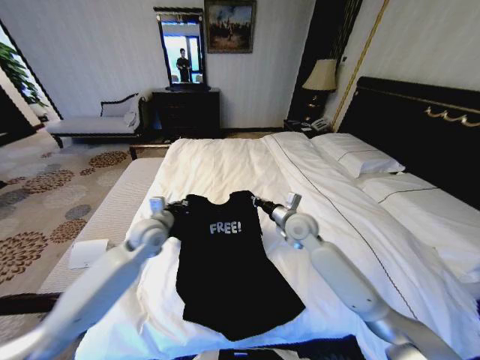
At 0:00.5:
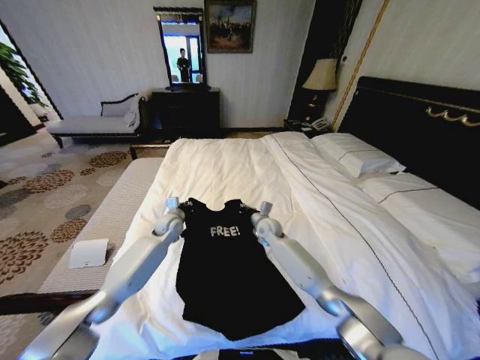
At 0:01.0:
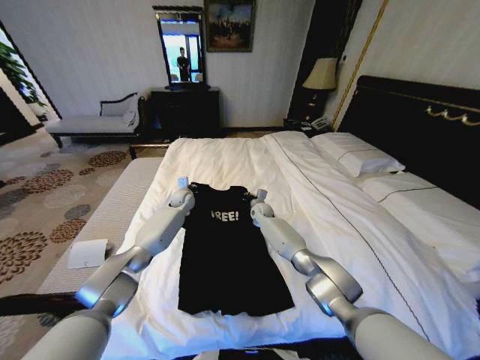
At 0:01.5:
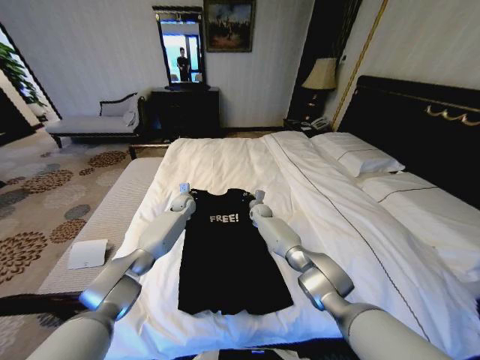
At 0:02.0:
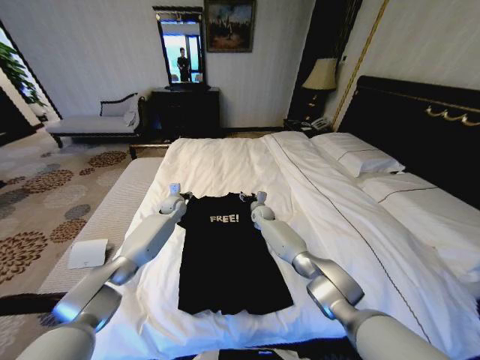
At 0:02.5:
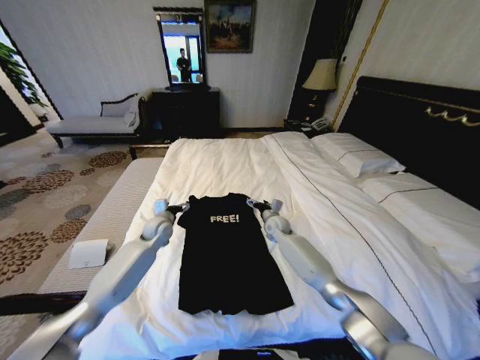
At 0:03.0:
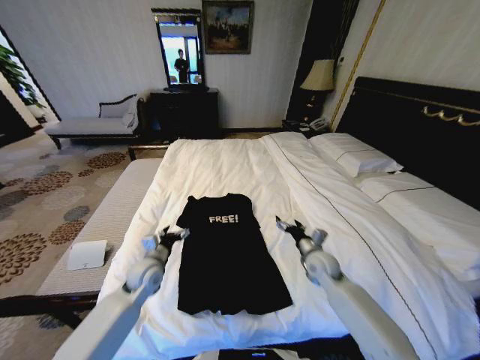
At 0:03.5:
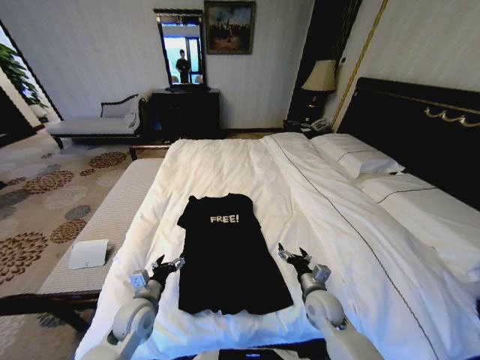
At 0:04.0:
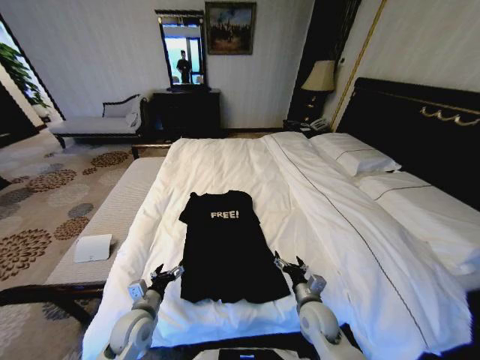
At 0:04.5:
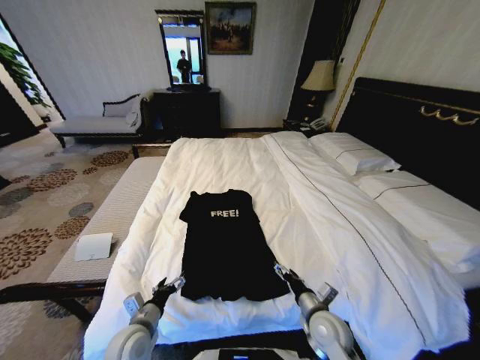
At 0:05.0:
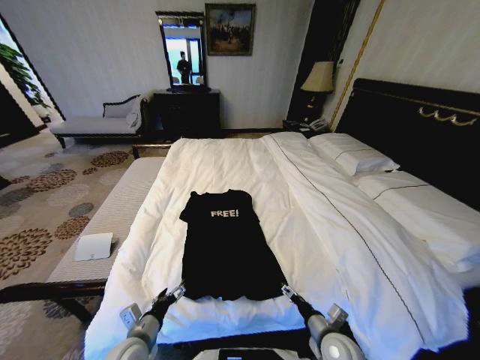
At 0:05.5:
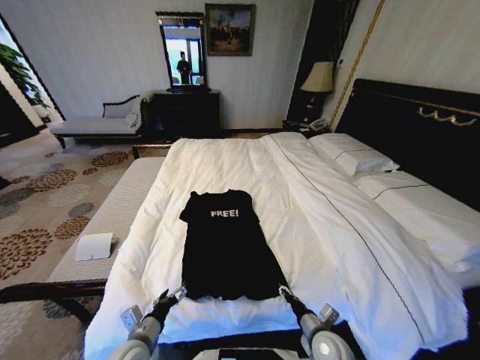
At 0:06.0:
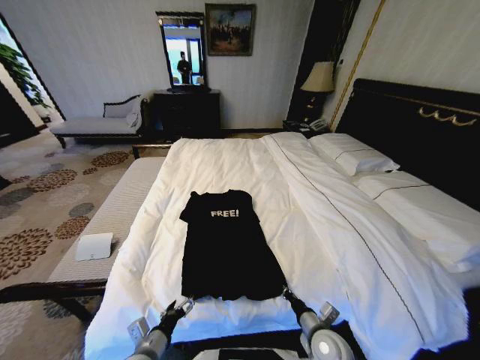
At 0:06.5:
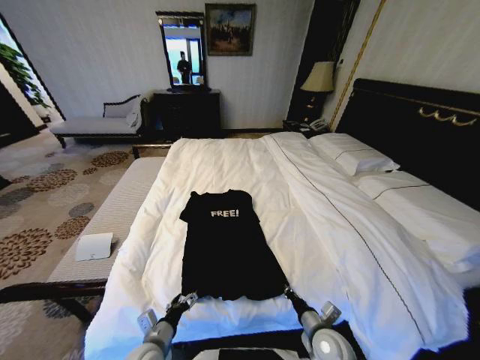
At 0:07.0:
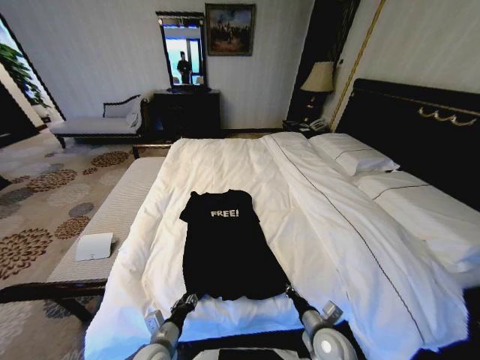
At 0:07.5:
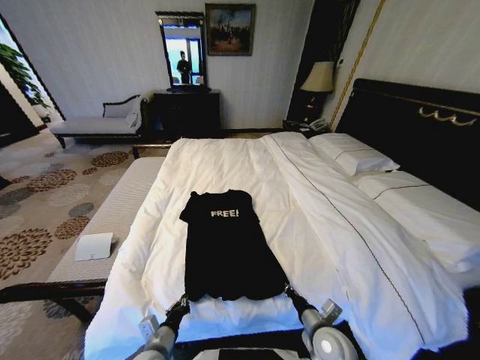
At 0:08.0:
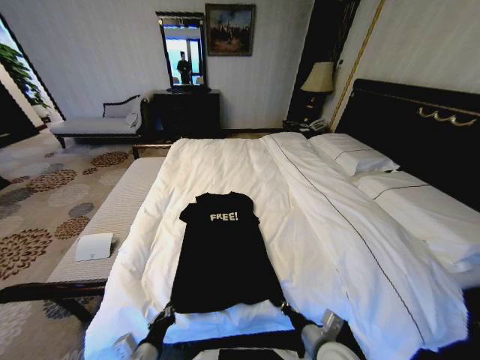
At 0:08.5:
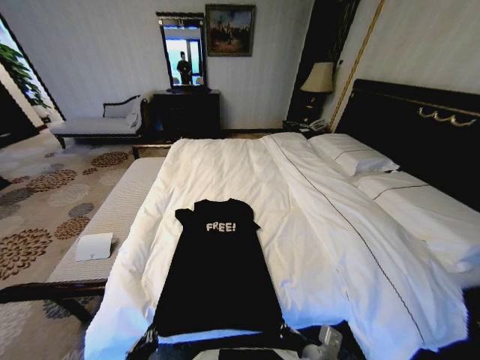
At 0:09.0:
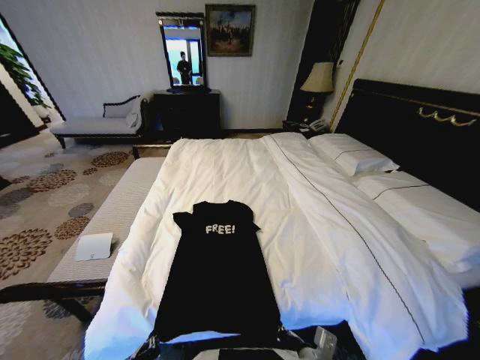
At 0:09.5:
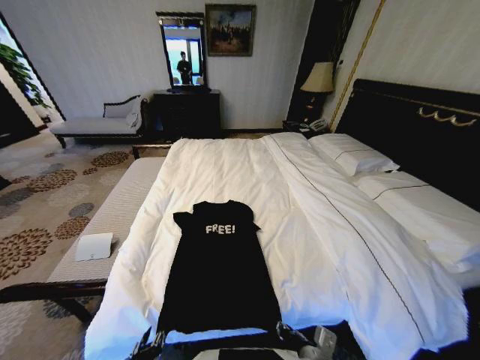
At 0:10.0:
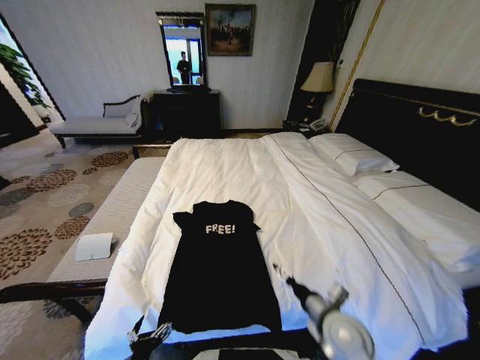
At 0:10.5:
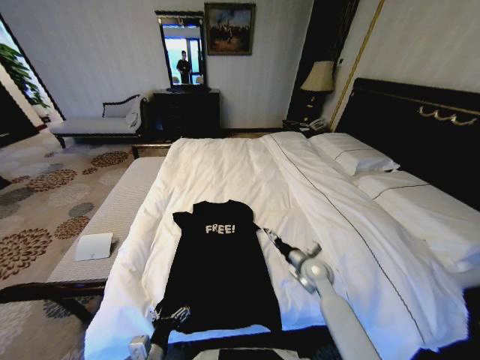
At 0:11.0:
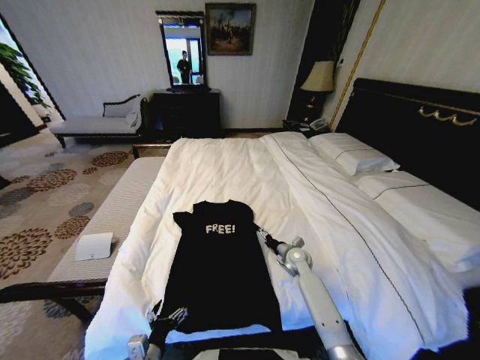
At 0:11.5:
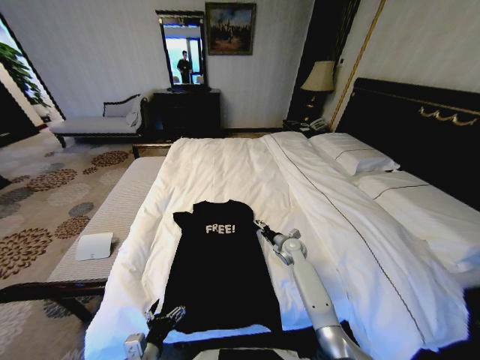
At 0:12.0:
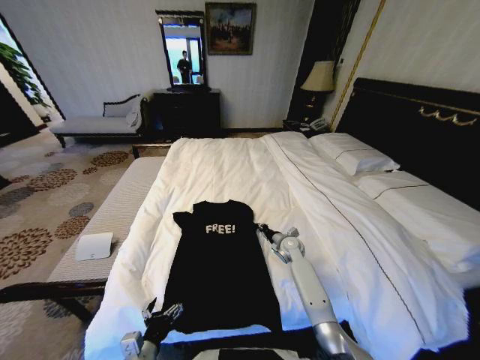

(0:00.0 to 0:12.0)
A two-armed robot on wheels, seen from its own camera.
Task of the whole recording: Fold the clothes on the bed.
0:00.0 - 0:02.0: The right gripper shifts about 25 cm forward and downward, and opens. Meanwhile the left gripper travels forward by about 20 cm, and opens.
0:02.0 - 0:04.0: Both grippers move backward, approximately 40 cm.
0:04.0 - 0:06.0: The two grippers go approximately 10 cm backward. The right gripper closes up.
0:06.0 - 0:08.0: The right gripper travels upward by approximately 5 cm. The left gripper closes.
0:08.0 - 0:10.0: The left gripper is displaced backward by approximately 5 cm, and opens. The right gripper opens up.
0:10.0 - 0:12.0: The right gripper shifts roughly 30 cm forward, and closes. The left gripper goes some 5 cm forward.

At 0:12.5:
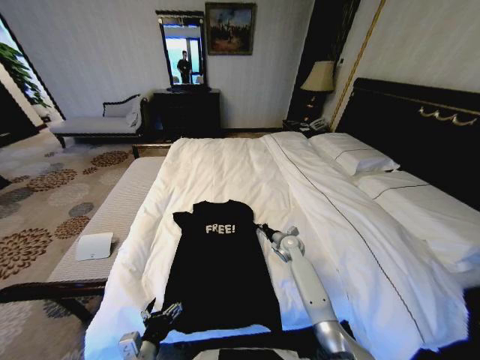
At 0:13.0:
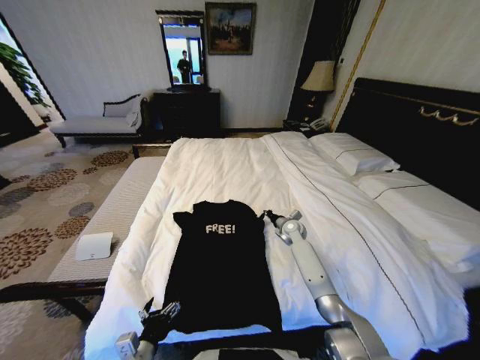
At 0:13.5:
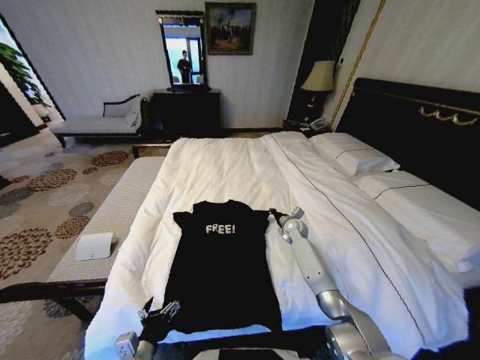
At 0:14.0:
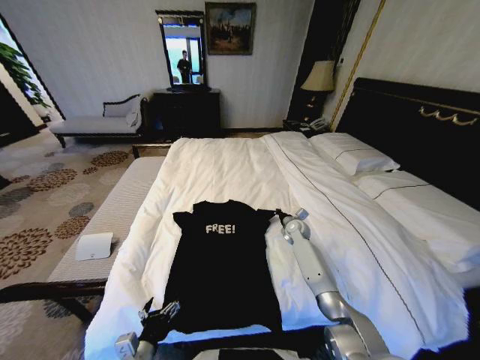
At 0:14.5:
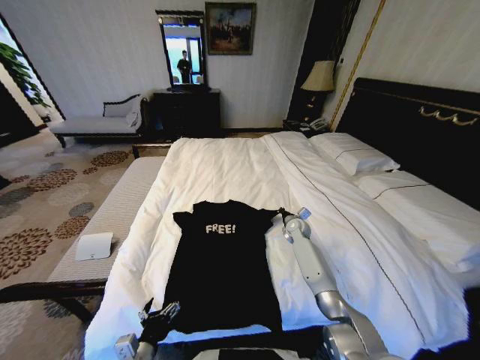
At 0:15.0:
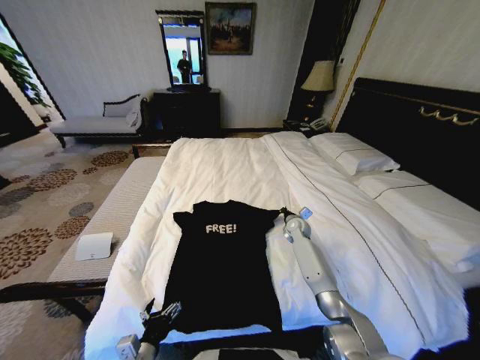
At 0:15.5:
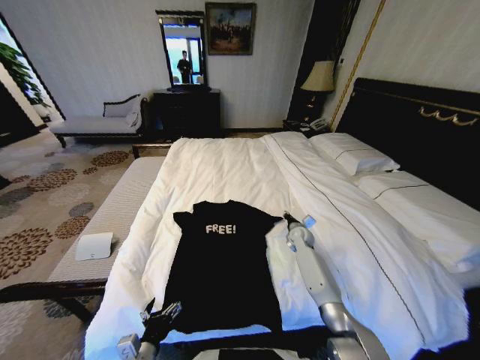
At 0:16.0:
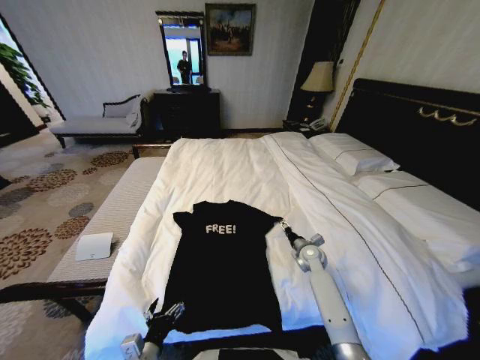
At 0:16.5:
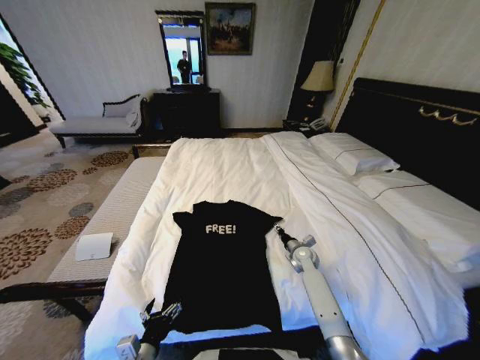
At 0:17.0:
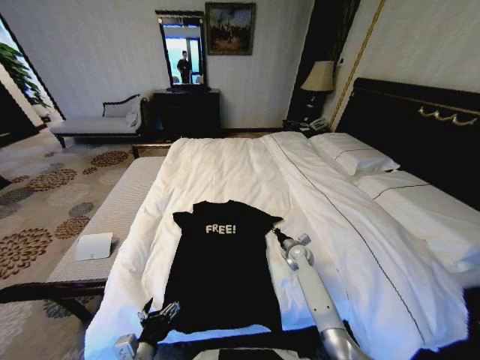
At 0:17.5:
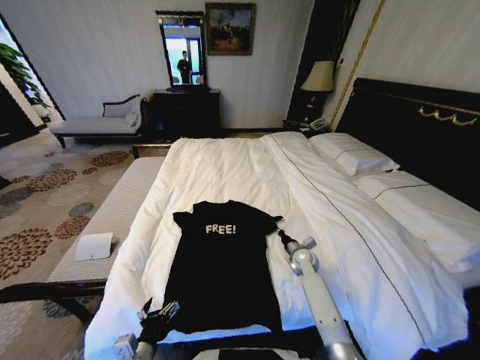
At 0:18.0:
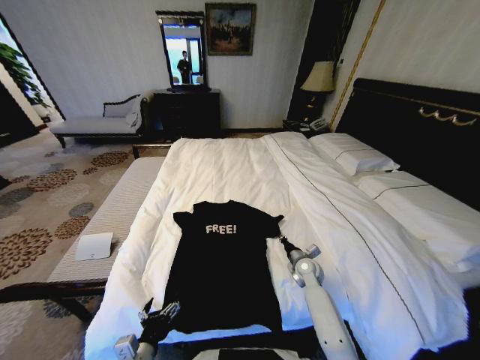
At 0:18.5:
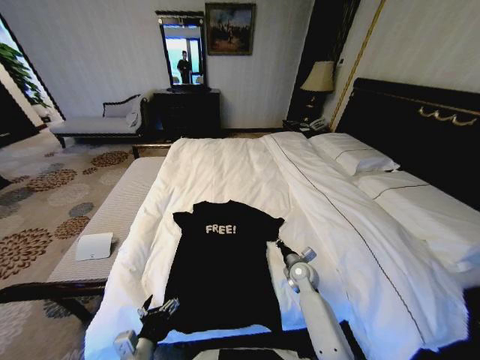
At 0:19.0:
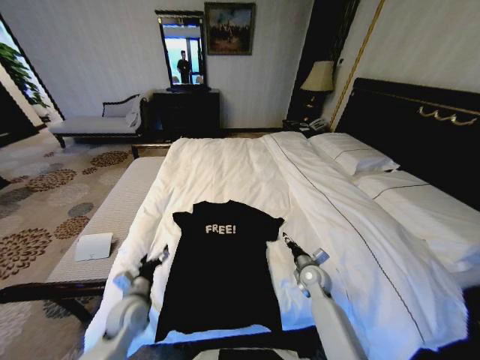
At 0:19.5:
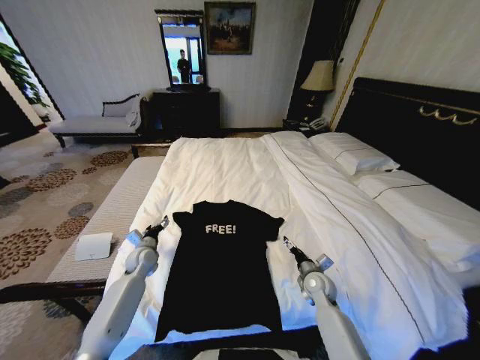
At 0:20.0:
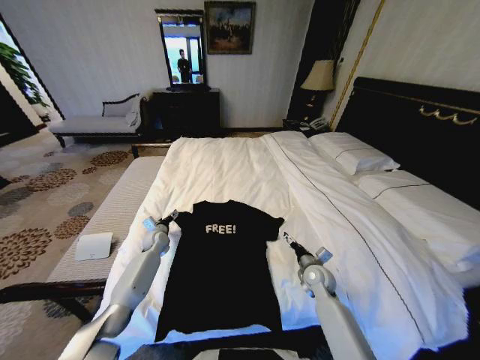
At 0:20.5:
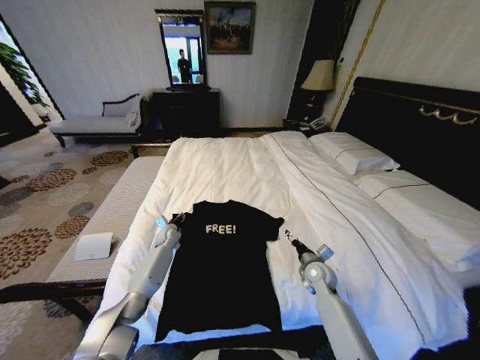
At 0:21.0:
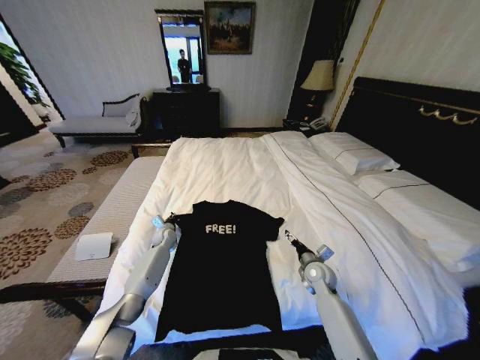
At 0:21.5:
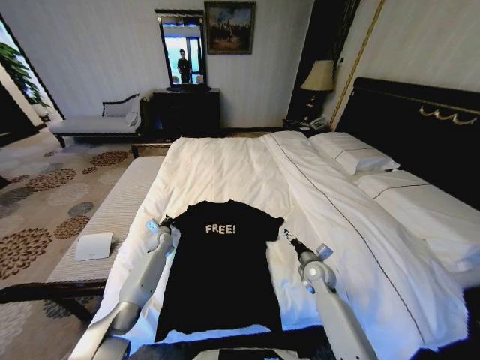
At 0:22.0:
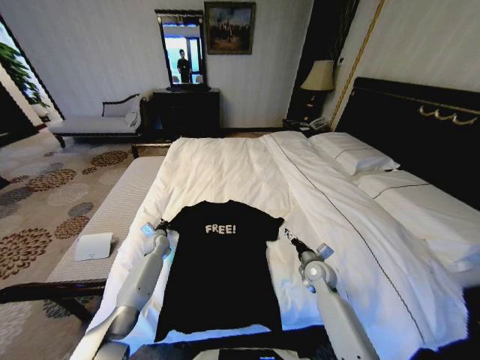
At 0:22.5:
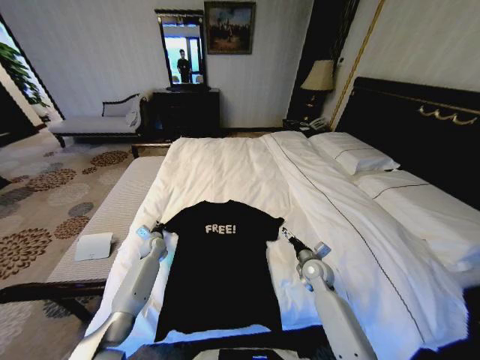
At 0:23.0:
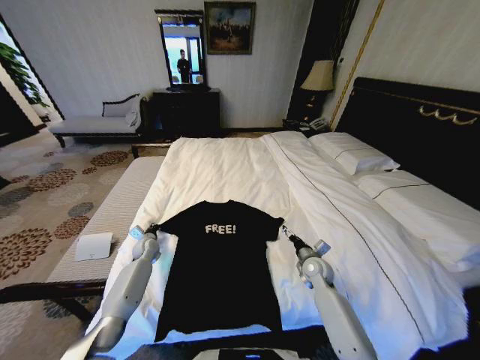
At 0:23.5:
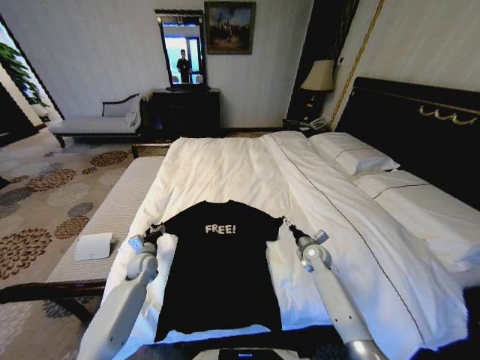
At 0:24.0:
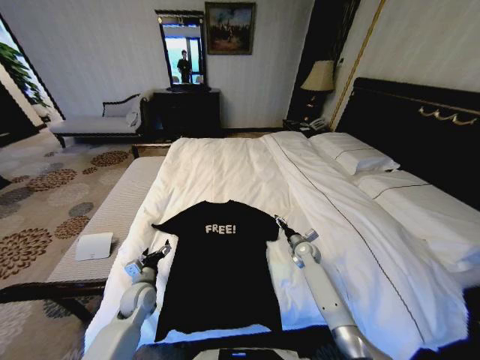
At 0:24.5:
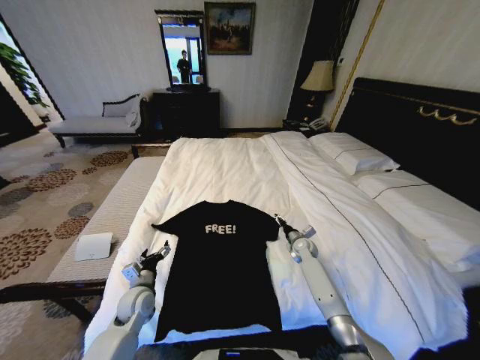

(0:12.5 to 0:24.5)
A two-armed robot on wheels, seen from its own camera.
Task of the whole recording: Fold the clothes on the bed.
0:12.5 - 0:14.5: The right gripper moves forward, about 5 cm.
0:14.5 - 0:16.5: The right gripper travels backward and downward by some 10 cm, and opens.
0:16.5 - 0:18.5: The right gripper is displaced backward by about 5 cm, and closes.
0:18.5 - 0:20.5: The left gripper travels forward by roughly 40 cm; the right gripper changes place by approximately 5 cm, and opens its fingers.
0:20.5 - 0:22.5: The left gripper moves roughly 5 cm, and closes.
0:22.5 - 0:24.5: The right gripper goes about 10 cm forward. Meanwhile the left gripper heads backward, covering some 20 cm, and opens.

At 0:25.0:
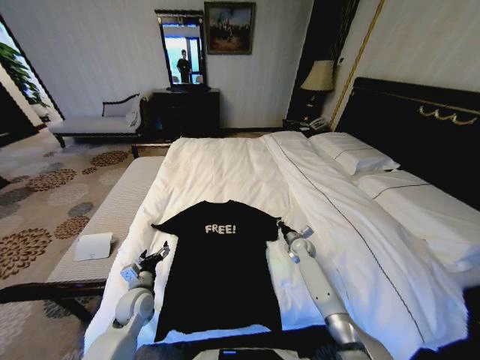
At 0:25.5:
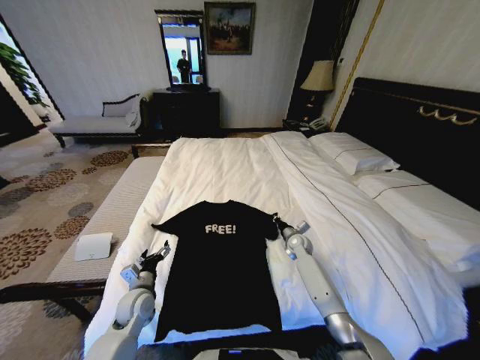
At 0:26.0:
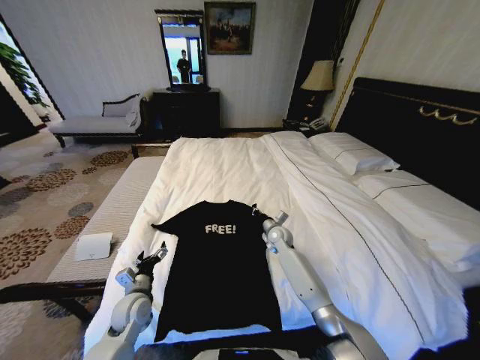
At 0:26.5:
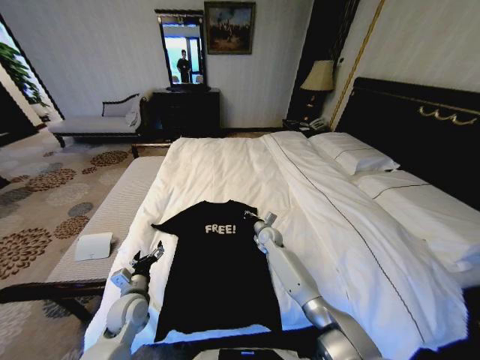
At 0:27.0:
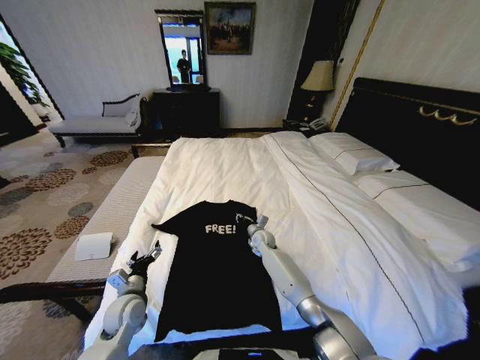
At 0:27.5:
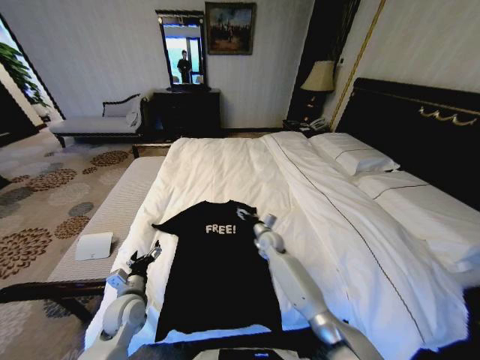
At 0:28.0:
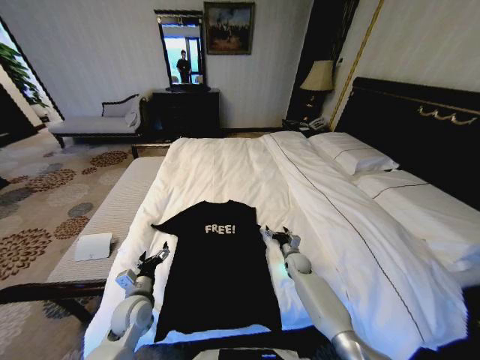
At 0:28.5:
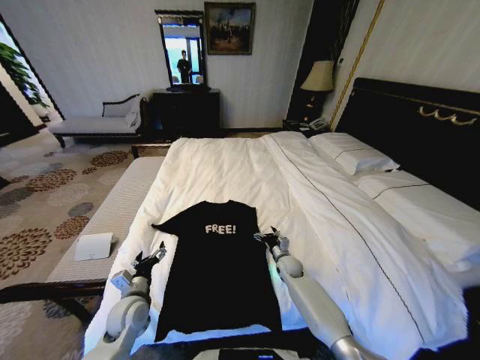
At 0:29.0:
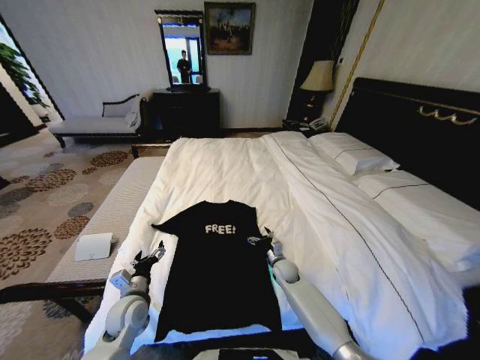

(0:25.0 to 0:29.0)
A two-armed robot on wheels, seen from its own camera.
Task of the whole recording: Fold the clothes on the bed.
0:25.0 - 0:27.0: The right gripper is displaced to the left by about 15 cm.
0:27.0 - 0:29.0: The right gripper heads backward, to the right and downward, covering some 15 cm, and opens.
